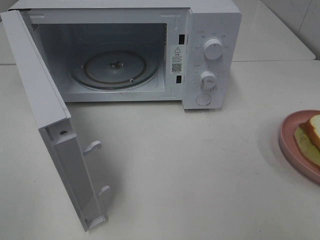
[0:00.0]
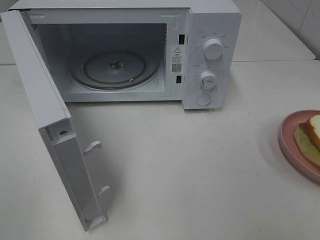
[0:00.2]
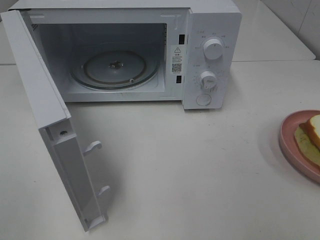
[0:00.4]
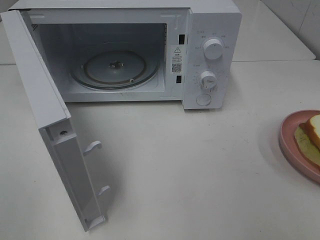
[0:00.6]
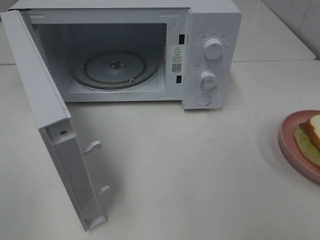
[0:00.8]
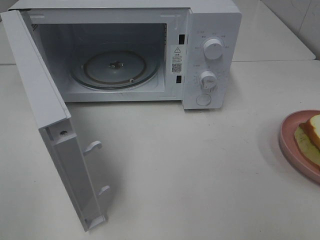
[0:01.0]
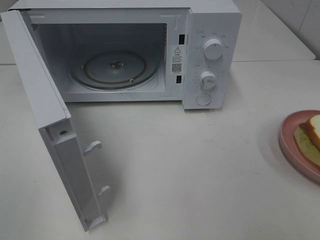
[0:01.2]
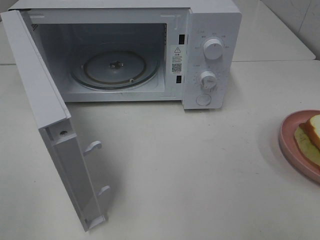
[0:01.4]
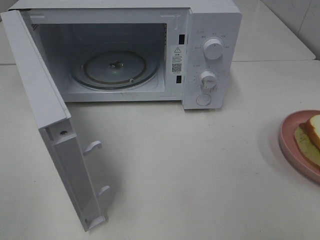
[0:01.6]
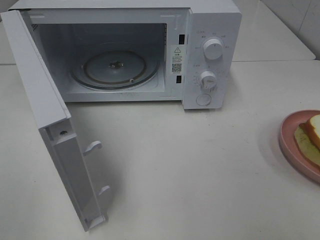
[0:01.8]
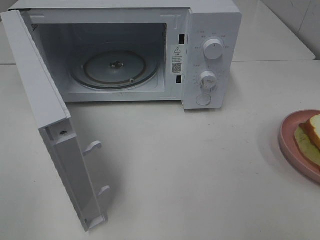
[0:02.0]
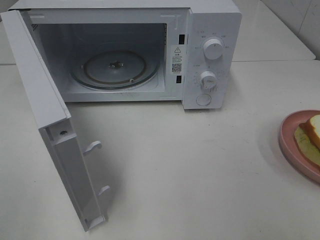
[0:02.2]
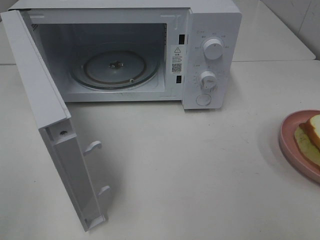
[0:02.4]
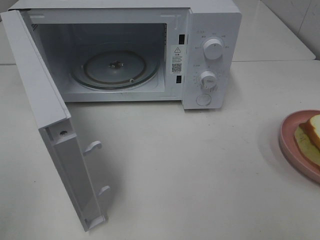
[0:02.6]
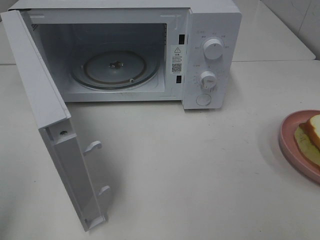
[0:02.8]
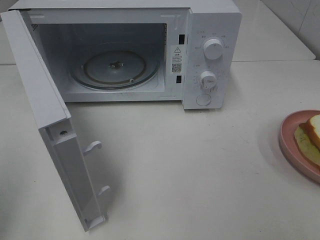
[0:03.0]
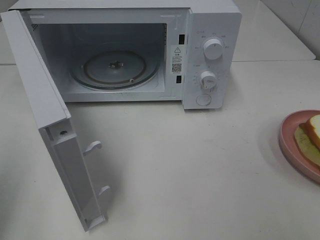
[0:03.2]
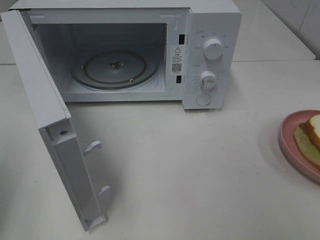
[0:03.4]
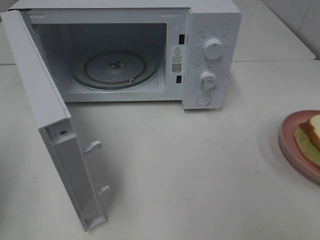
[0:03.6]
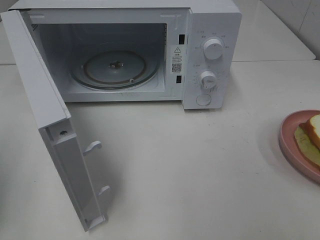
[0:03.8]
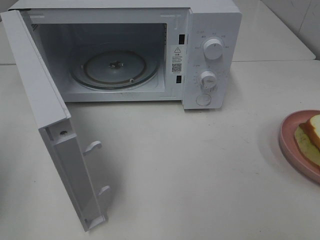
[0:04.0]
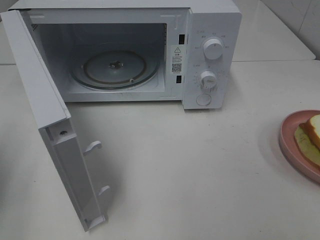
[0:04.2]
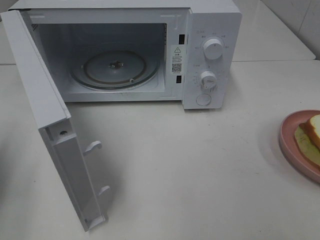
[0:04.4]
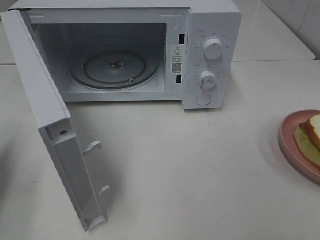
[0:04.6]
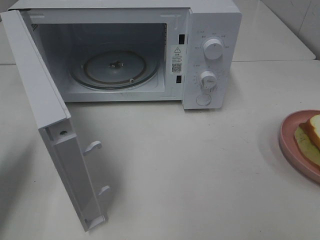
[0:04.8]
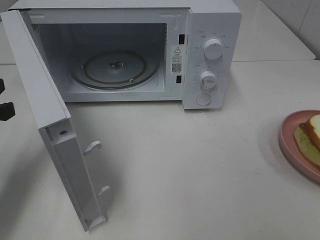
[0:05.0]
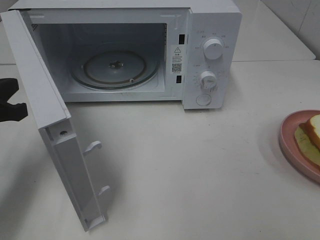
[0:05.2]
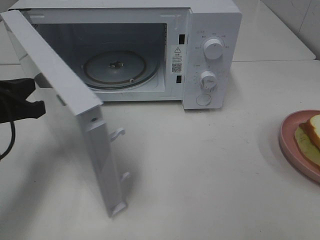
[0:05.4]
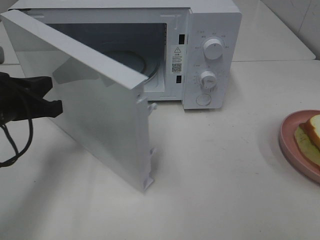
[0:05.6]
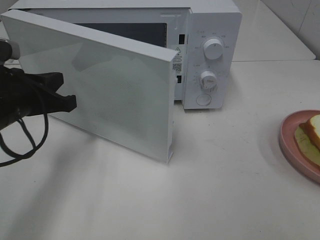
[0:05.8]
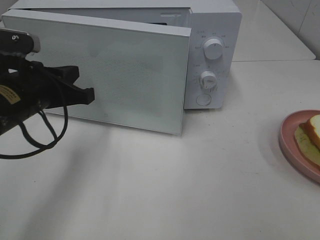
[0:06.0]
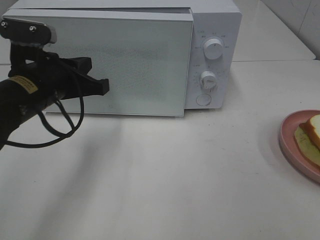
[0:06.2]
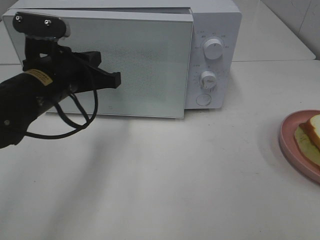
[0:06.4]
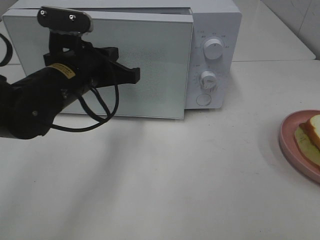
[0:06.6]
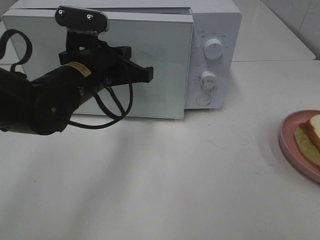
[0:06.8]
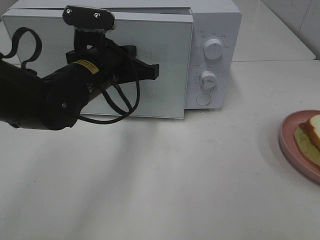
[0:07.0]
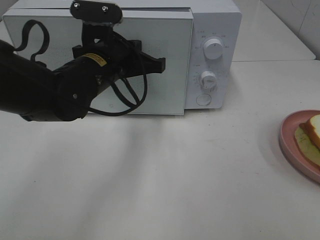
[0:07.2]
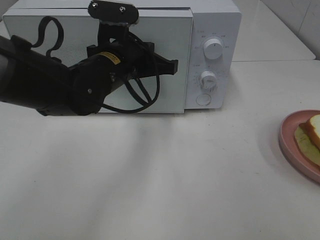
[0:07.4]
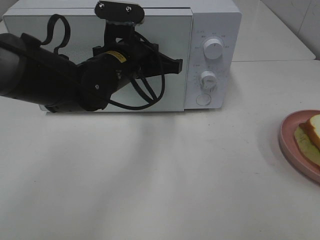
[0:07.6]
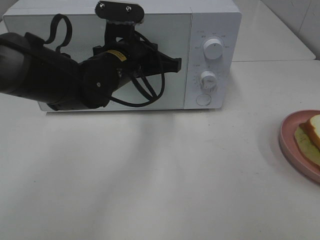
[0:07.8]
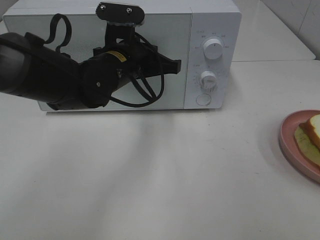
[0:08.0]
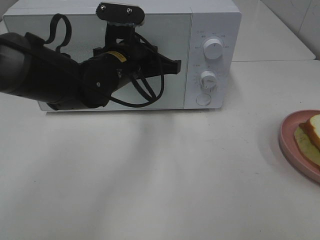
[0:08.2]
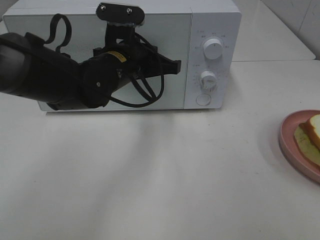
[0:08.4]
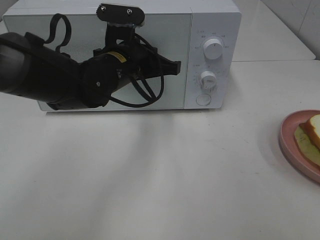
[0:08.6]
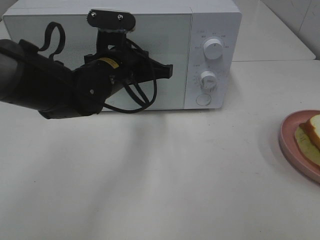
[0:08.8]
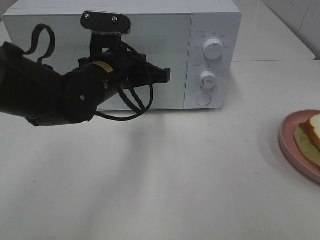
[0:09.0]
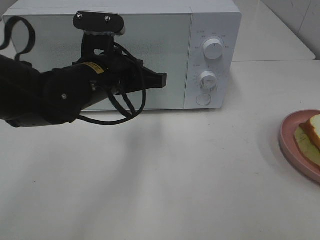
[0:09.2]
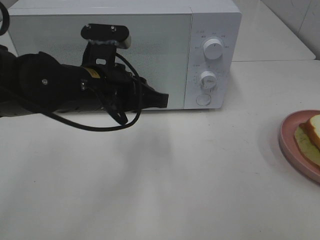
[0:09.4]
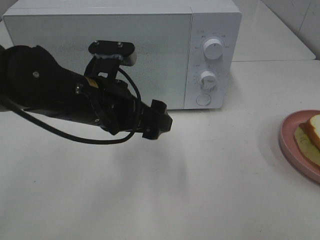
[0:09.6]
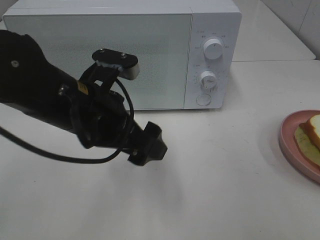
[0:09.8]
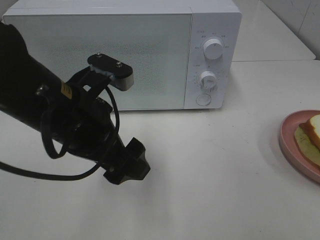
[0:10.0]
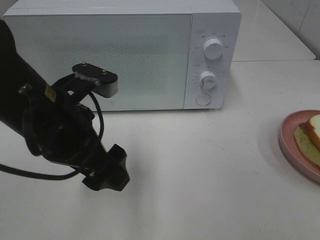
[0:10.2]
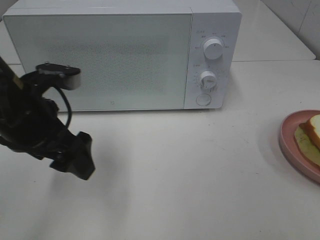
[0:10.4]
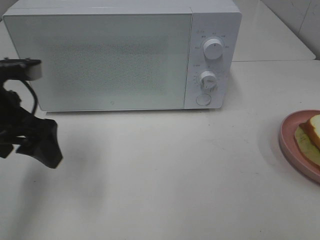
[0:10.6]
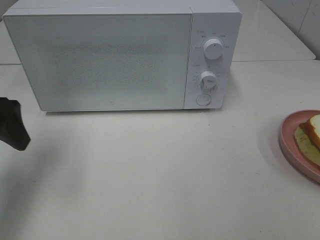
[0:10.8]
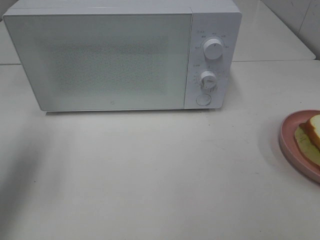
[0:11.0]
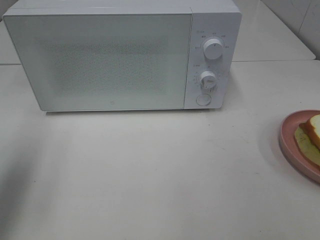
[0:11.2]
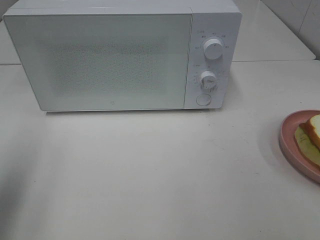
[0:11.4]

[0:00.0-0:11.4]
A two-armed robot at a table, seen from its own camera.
Task of the whole recording: Heat Sandwich.
Step, 0:00.0 to 0:09.2: Left hand: close the microwave door.
0:00.0 to 0:01.4: The two grippers keep their place.
0:04.2 to 0:05.6: The left gripper travels to the right and forward by about 15 cm.
0:05.6 to 0:07.2: The left gripper goes roughly 15 cm to the right and forward.
0:07.2 to 0:08.6: The grippers make only small movements.
0:08.6 to 0:10.0: The left gripper goes about 15 cm backward, and opens.
0:10.0 to 0:11.4: The left gripper is displaced to the left by about 20 cm.

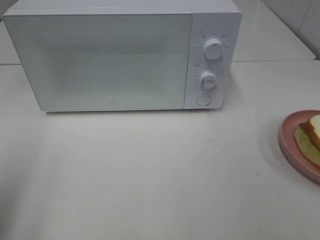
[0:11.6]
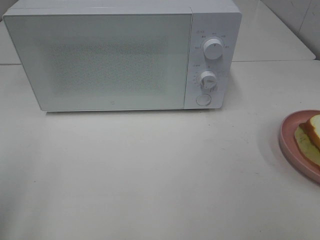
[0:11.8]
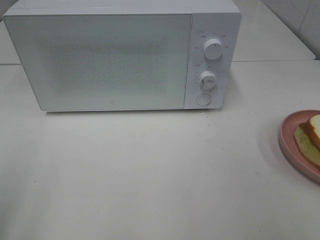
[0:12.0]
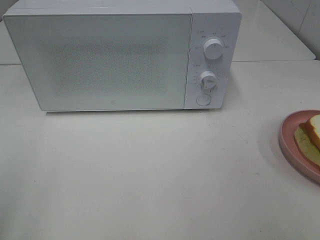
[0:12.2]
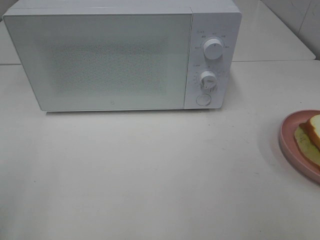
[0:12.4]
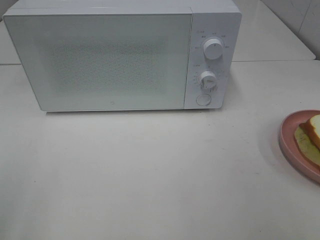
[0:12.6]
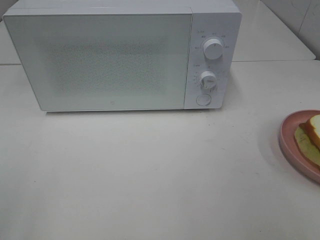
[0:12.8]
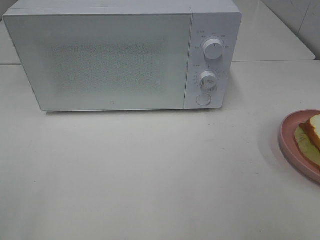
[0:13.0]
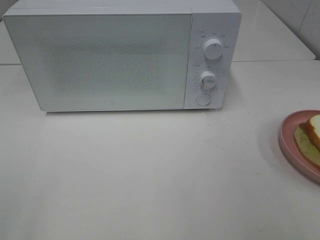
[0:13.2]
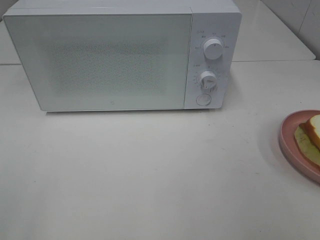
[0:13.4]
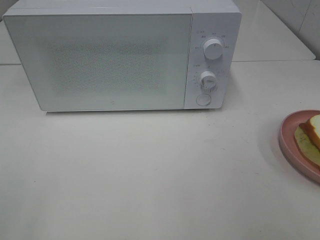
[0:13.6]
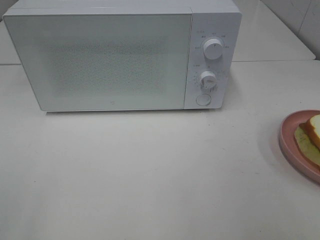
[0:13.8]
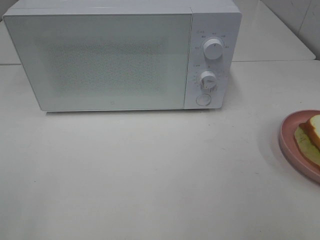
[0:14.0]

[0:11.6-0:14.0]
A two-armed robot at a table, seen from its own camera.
Task of the whole recording: Heat Sandwich.
0:11.6 to 0:12.8: The left gripper travels backward by roughly 10 cm.

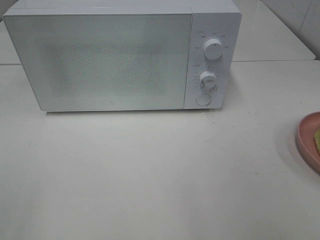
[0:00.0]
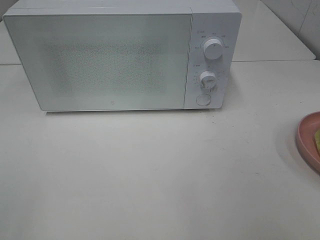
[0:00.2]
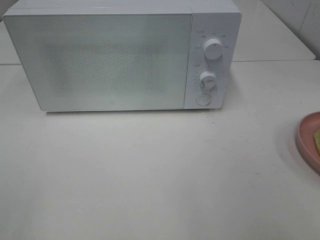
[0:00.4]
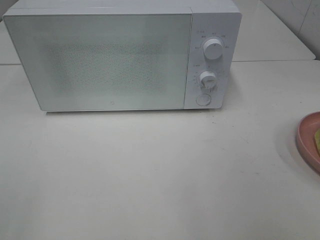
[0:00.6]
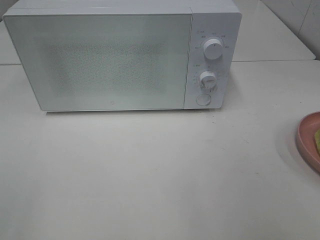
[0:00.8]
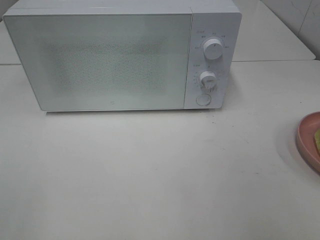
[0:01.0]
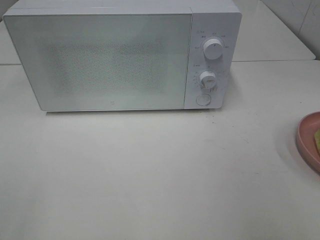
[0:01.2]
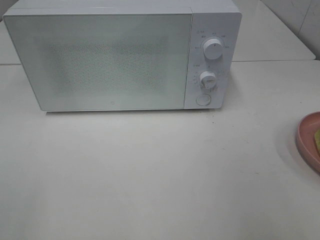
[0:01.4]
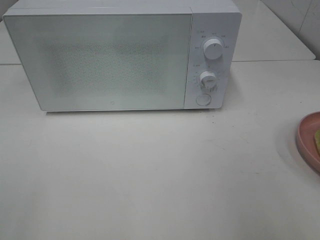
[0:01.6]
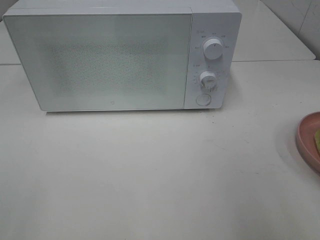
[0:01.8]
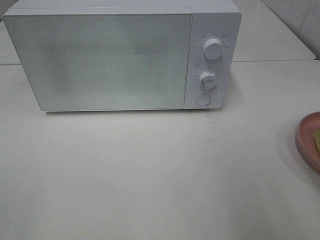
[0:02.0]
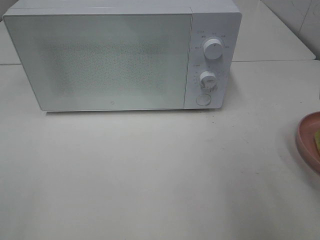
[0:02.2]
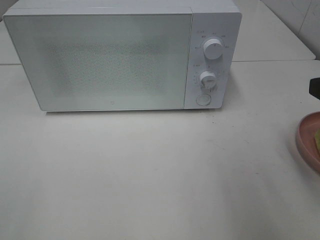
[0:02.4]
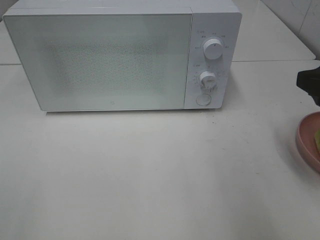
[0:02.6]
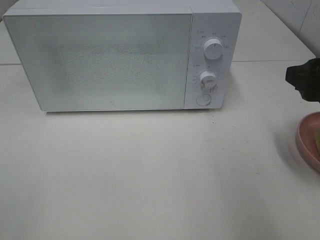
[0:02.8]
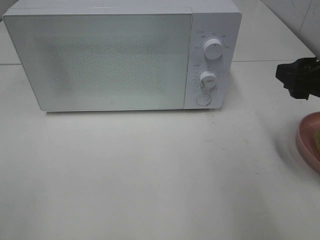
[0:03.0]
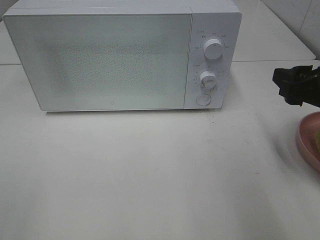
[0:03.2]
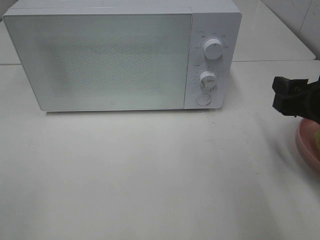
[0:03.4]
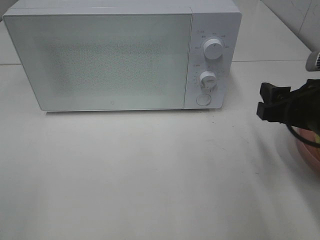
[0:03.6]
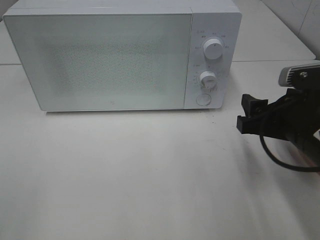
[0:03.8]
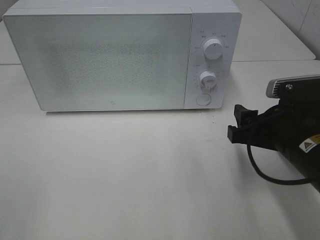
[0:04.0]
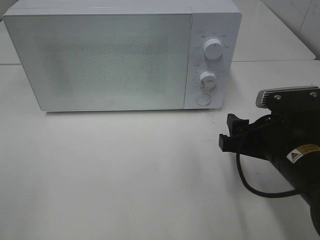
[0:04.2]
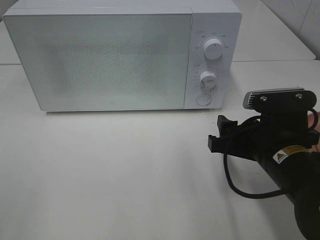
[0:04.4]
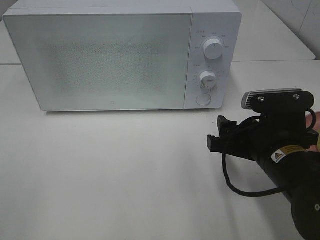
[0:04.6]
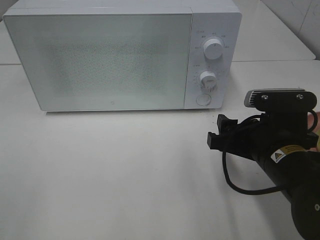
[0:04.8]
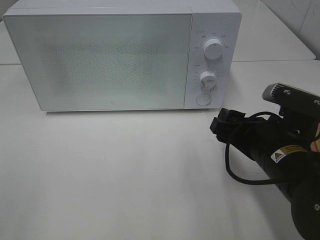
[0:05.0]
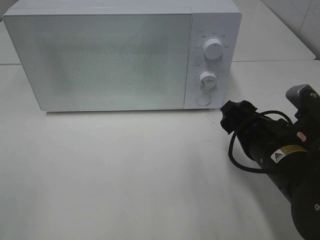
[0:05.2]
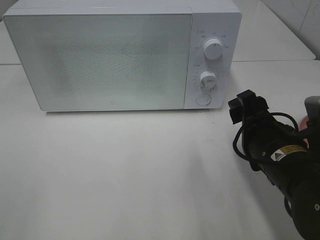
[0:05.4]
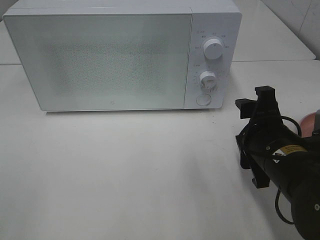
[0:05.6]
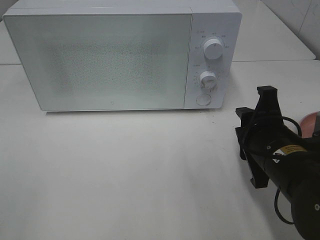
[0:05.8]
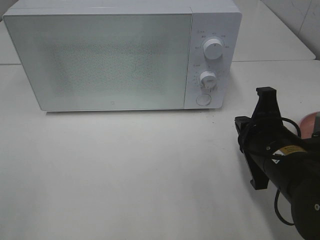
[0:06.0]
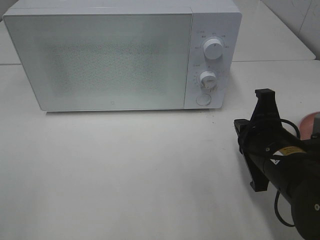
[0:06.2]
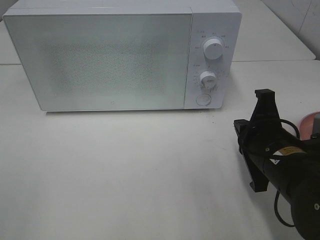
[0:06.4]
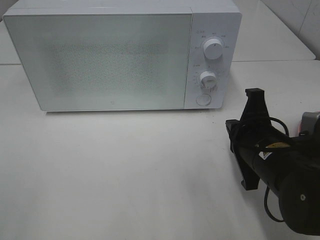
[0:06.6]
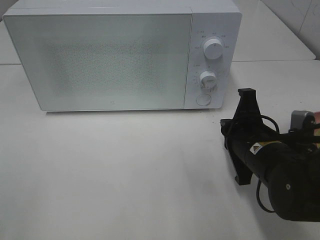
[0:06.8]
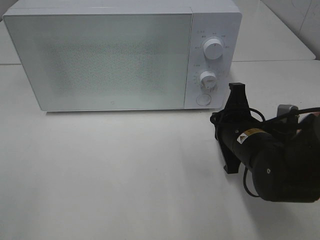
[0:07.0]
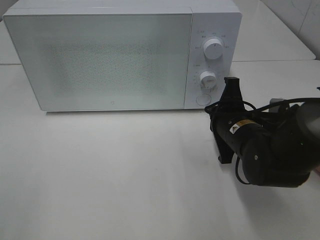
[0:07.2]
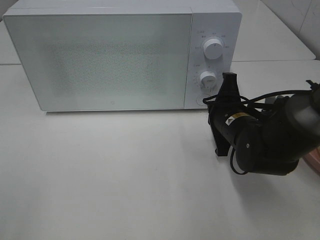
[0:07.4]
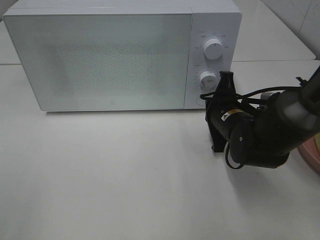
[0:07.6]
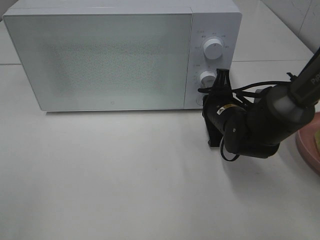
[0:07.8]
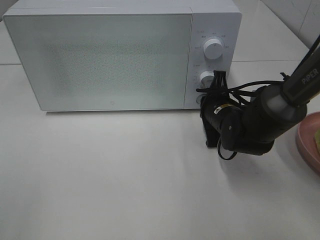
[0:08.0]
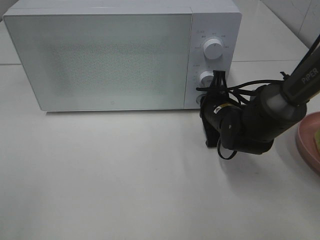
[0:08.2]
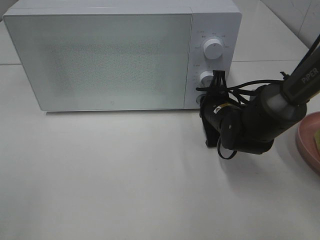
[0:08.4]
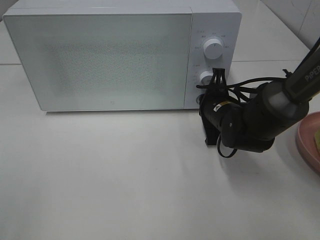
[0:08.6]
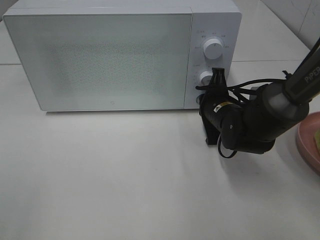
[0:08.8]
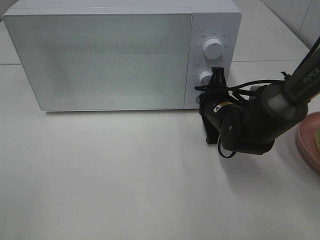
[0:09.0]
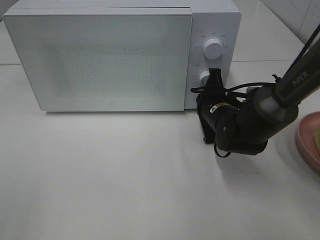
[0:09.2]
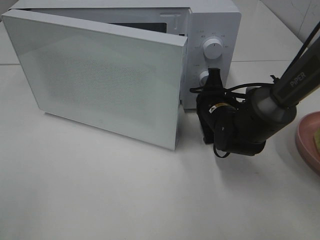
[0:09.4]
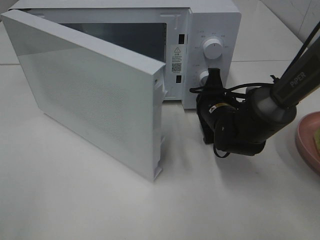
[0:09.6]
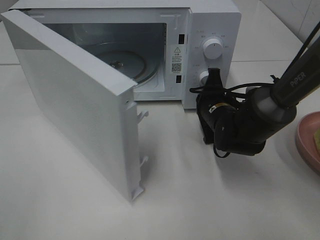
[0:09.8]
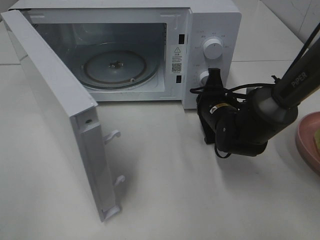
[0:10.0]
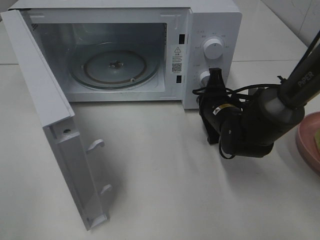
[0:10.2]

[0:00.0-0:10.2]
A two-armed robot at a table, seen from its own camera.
Task of the whole recording: Heat Sandwich.
0:01.4 to 0:03.0: The right gripper travels forward and downward by some 15 cm.
0:03.0 to 0:04.4: The right gripper moves downward and to the left, some 15 cm.
0:04.4 to 0:05.8: The right gripper closes.
0:05.8 to 0:07.2: The right gripper heads forward, covering about 10 cm, and closes.
0:07.2 to 0:08.8: The right gripper heads forward, covering approximately 5 cm.
